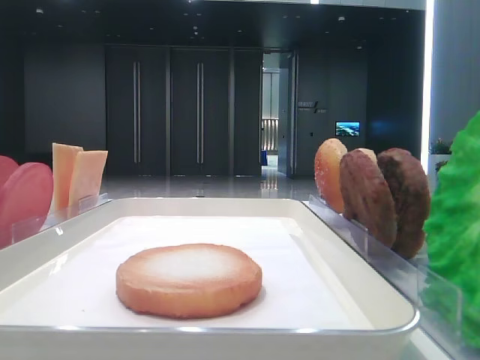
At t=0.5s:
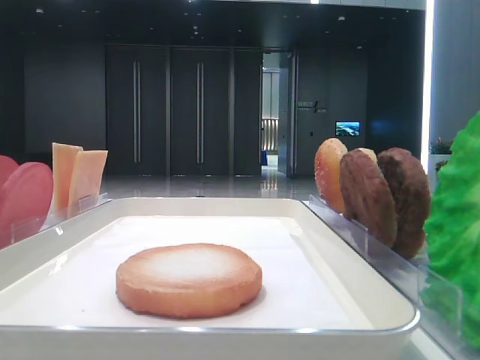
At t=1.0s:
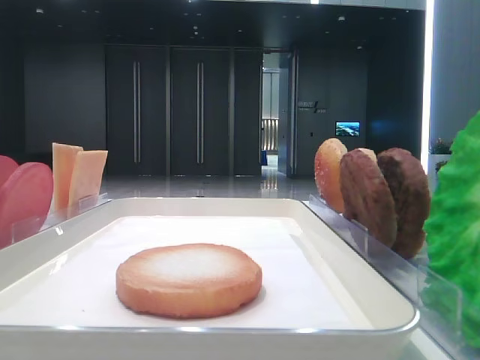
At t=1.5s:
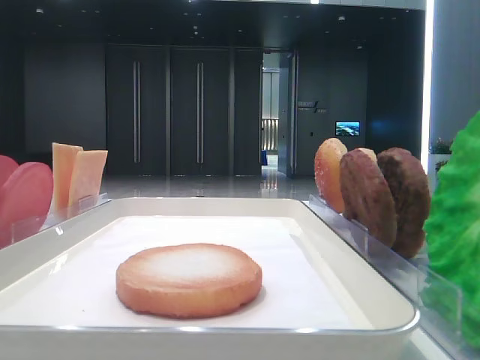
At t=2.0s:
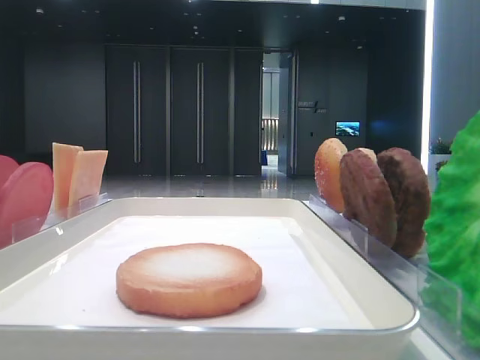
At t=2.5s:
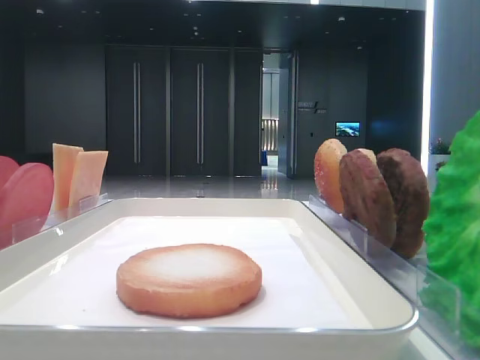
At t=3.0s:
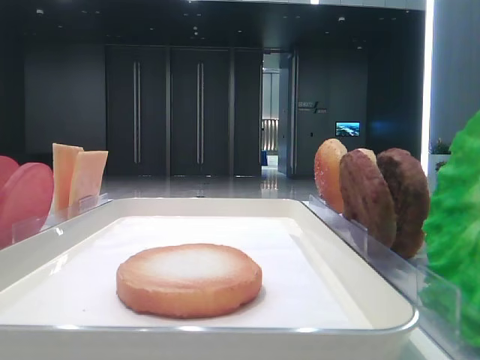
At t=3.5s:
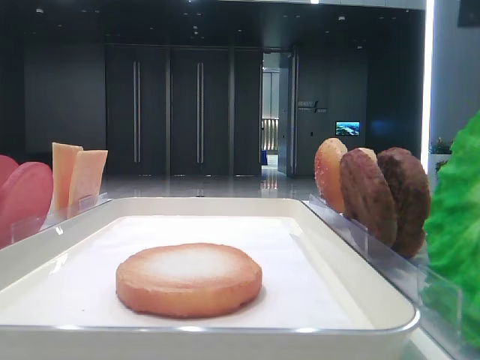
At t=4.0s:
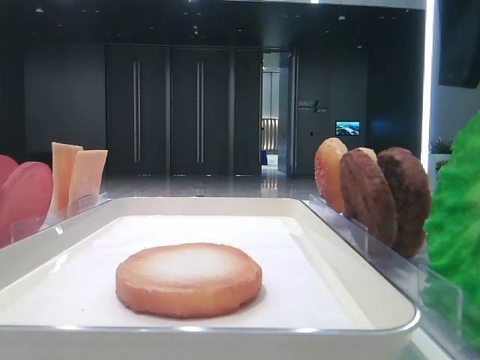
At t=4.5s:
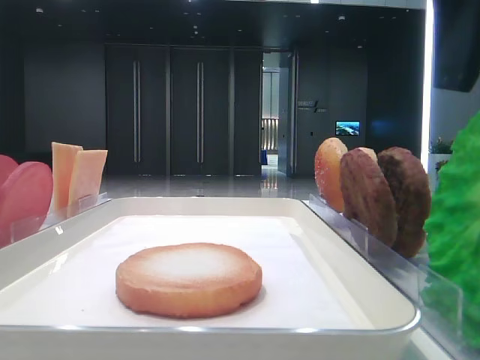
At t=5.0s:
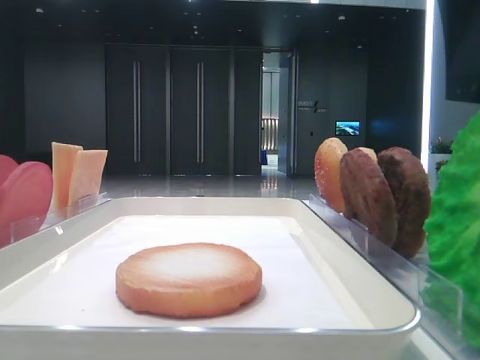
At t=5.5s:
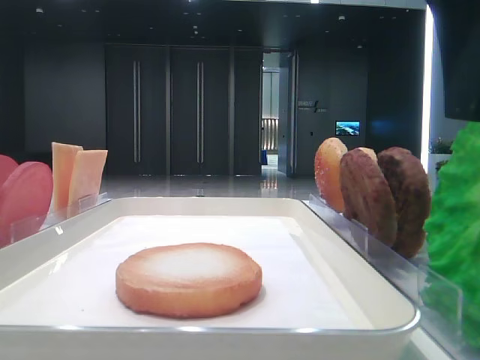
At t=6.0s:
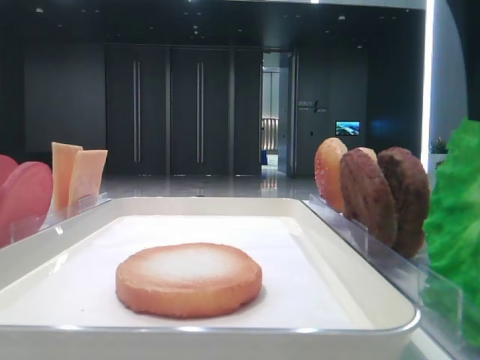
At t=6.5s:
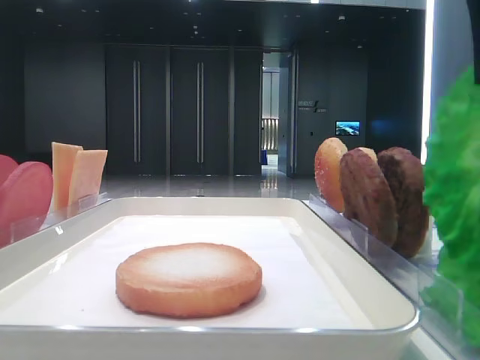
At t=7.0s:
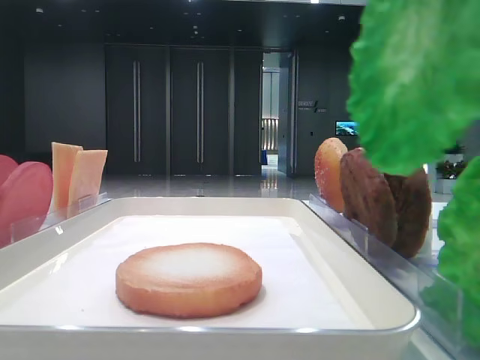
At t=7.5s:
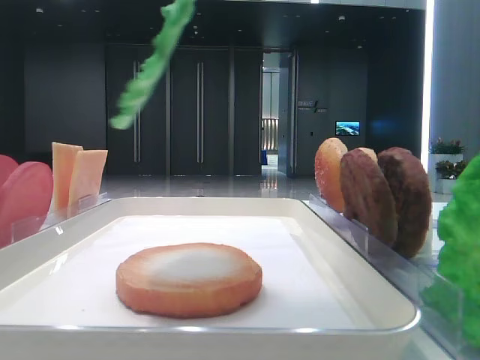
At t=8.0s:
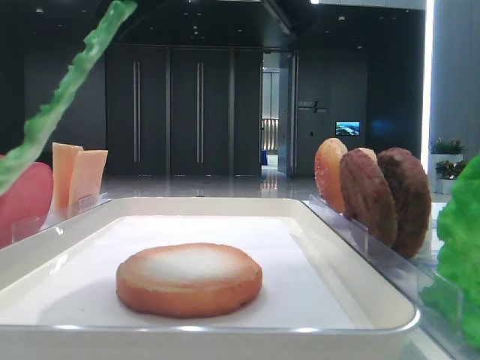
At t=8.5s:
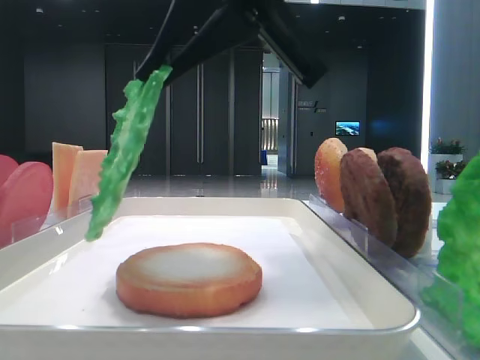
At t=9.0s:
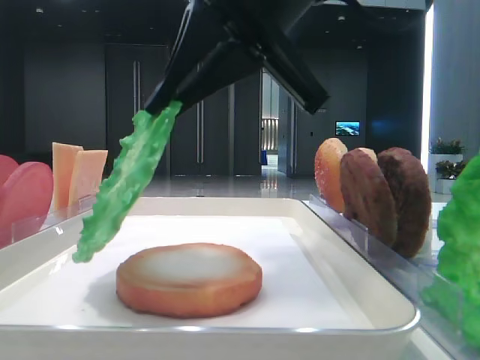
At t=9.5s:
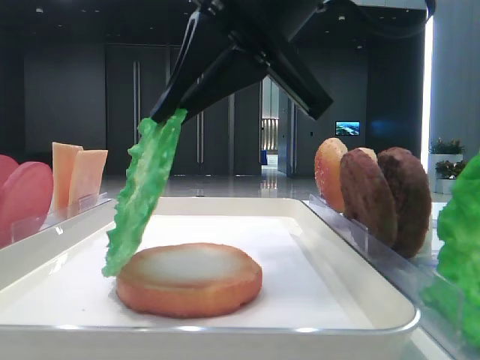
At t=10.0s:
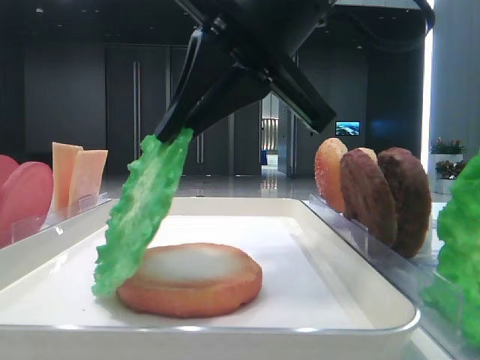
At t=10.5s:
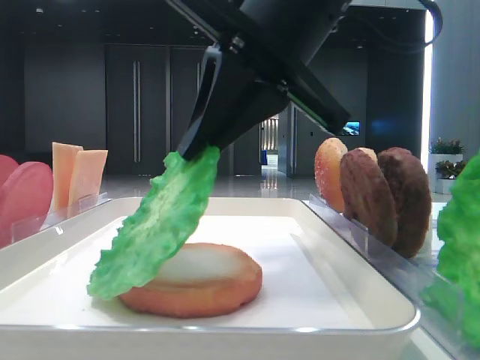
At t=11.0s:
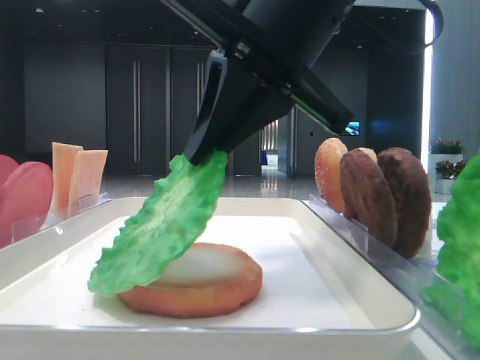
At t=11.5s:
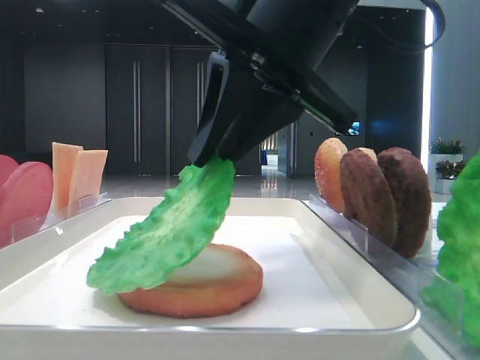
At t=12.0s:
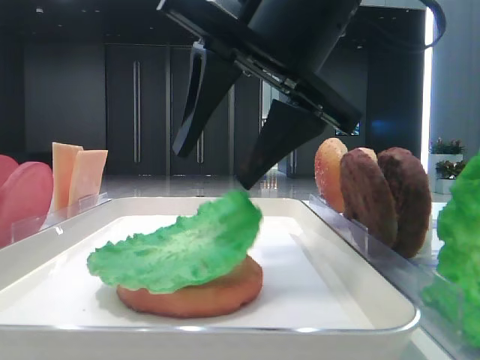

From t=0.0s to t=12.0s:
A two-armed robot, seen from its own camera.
Step, from t=0.0s to t=6.0s: Grab the lettuce leaf with the right hand.
Step, from t=6.5s to t=12.0s: Place the lettuce leaf on the bread slice with the right hand.
From t=2.0s to t=4.0s: The right gripper heads to the left and downward, covering some 15 cm.
From t=4.0s to t=6.0s: The right gripper closes up.
From t=6.0s to t=8.0s: The right gripper goes about 15 cm to the left, and closes up.
From t=8.0s to t=10.0s: The right gripper goes about 5 cm downward.
From t=10.0s to t=12.0s: The right gripper opens its fingers.

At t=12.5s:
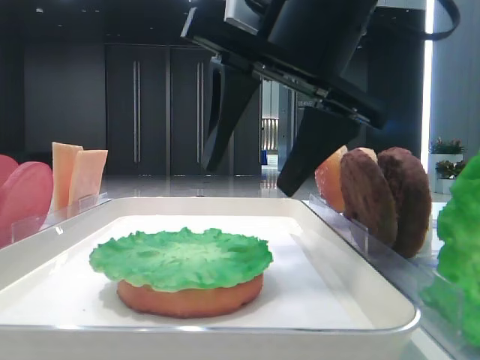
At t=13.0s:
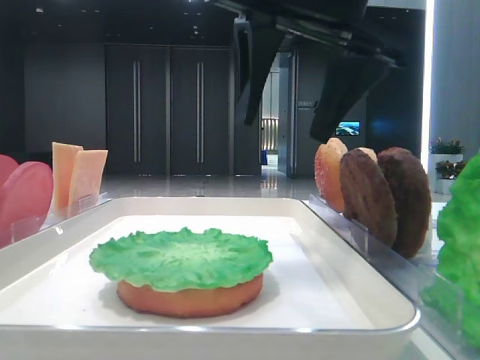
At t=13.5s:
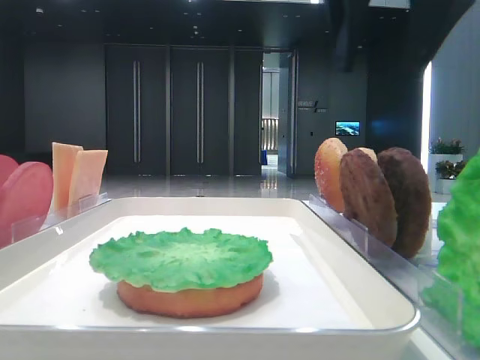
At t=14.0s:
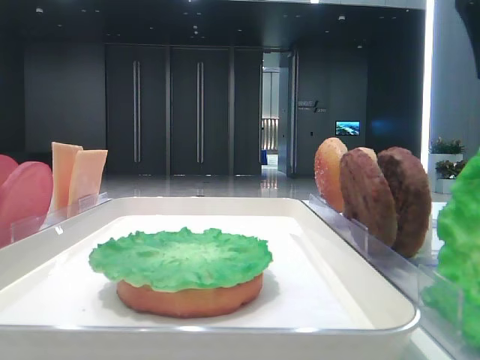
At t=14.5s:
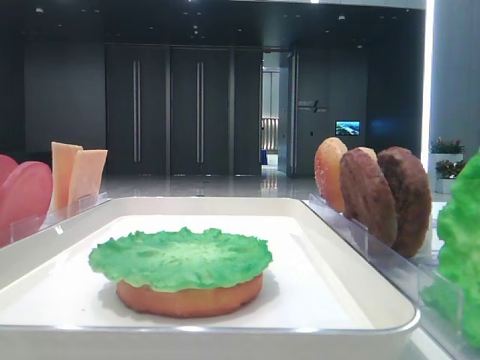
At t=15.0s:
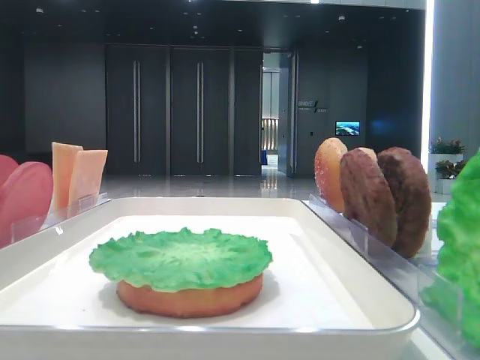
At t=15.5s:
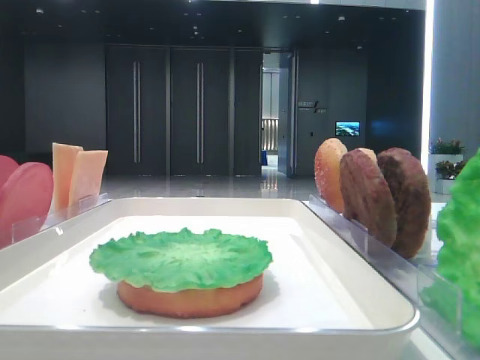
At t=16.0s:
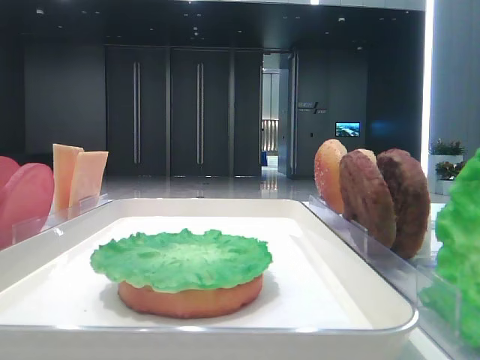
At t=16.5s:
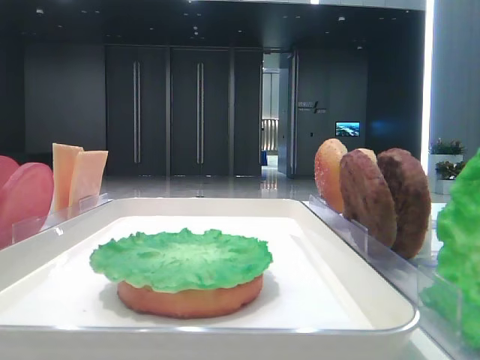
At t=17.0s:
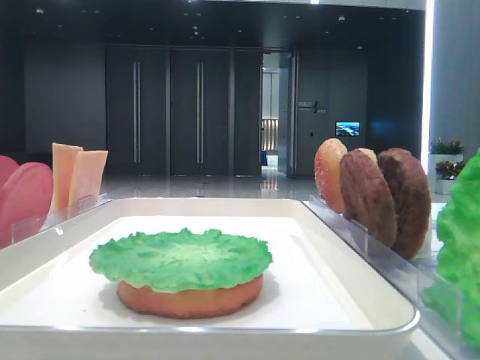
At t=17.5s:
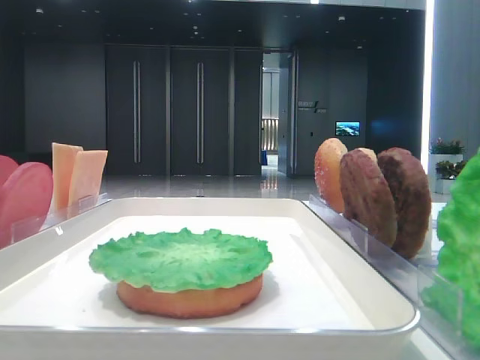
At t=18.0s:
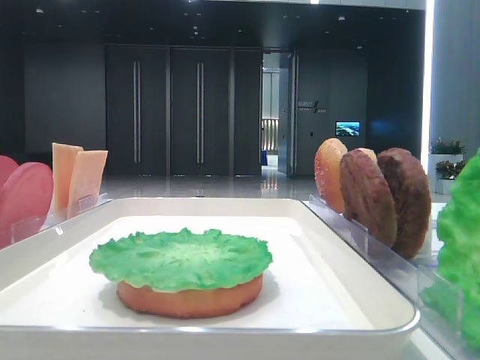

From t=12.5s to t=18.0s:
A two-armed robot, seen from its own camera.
From t=12.5s to t=14.5s: The right gripper shifts approximately 25 cm to the right.
From t=14.5s to t=16.0s: The right gripper moves backward, about 25 cm.
From t=16.0s to t=18.0s: The right gripper is displaced downward and backward by some 10 cm.

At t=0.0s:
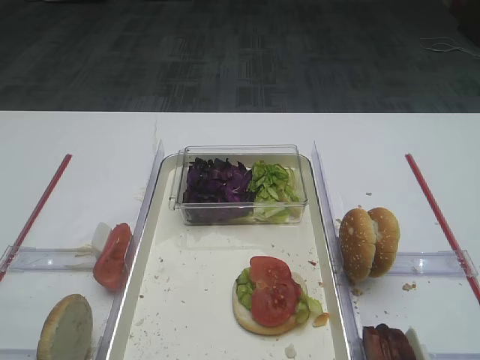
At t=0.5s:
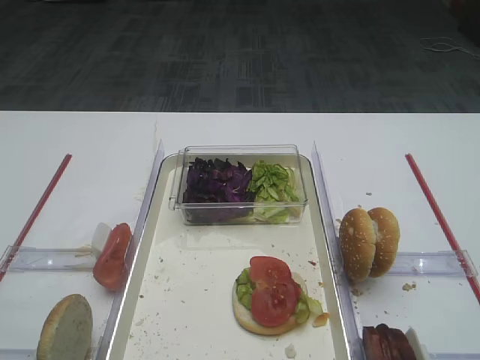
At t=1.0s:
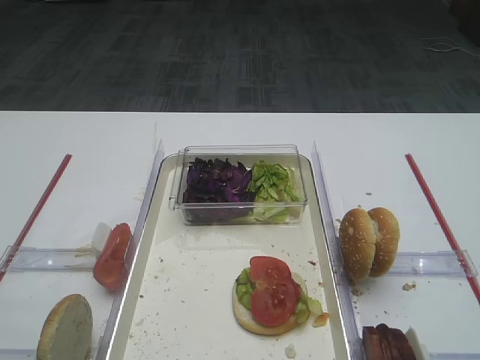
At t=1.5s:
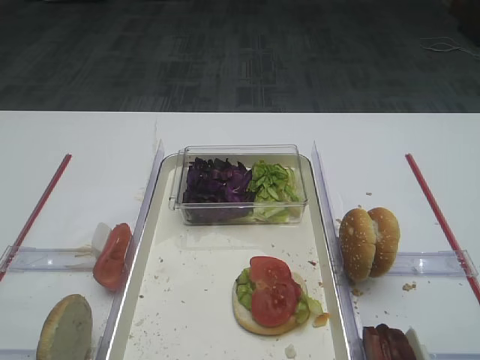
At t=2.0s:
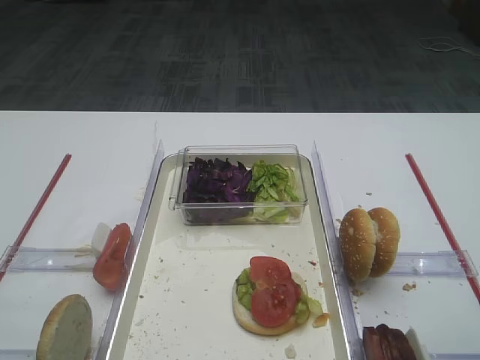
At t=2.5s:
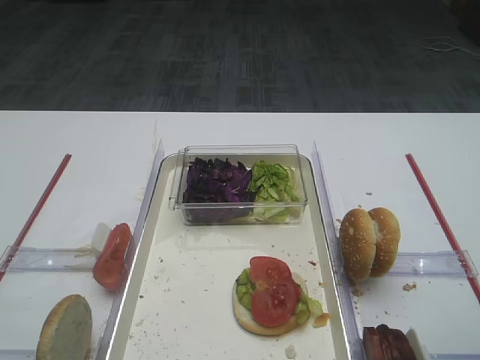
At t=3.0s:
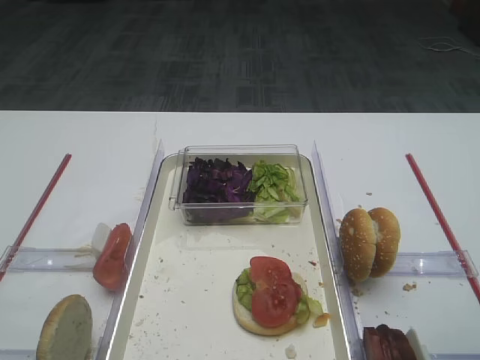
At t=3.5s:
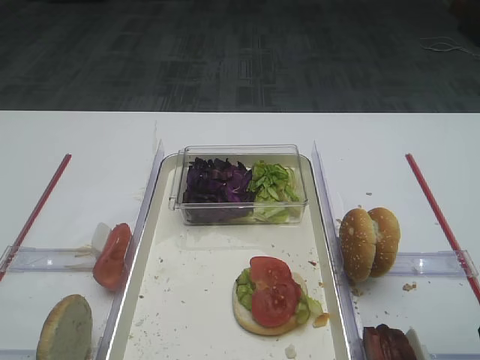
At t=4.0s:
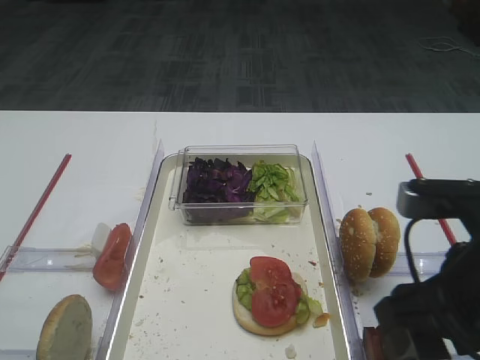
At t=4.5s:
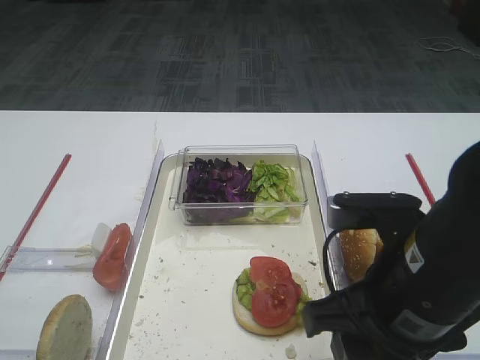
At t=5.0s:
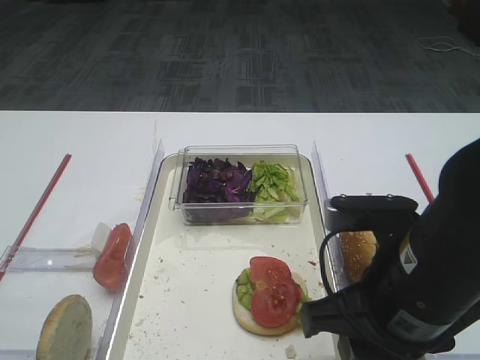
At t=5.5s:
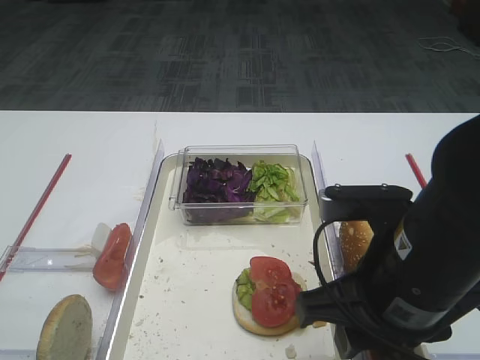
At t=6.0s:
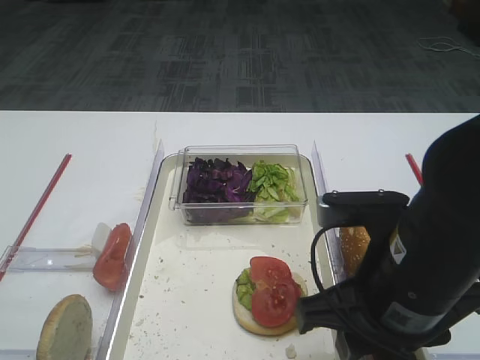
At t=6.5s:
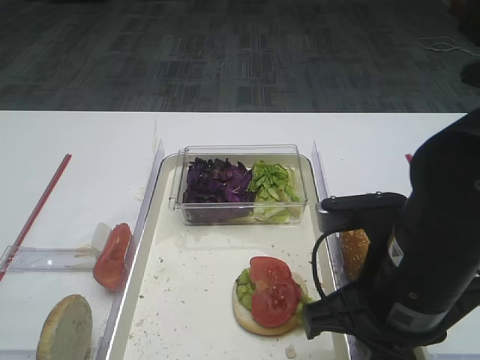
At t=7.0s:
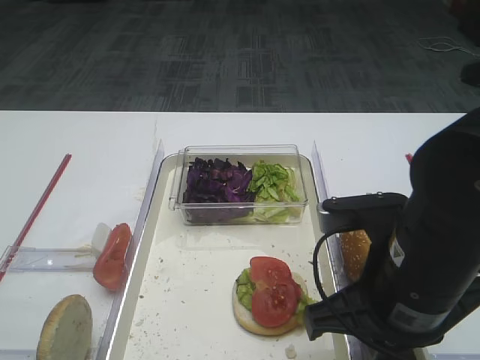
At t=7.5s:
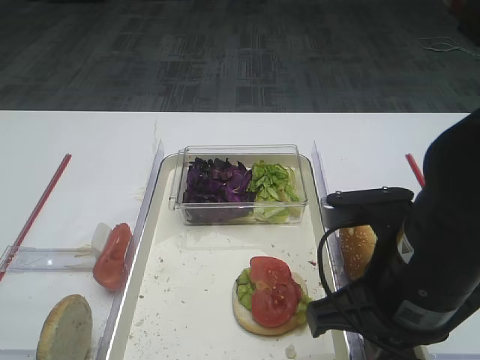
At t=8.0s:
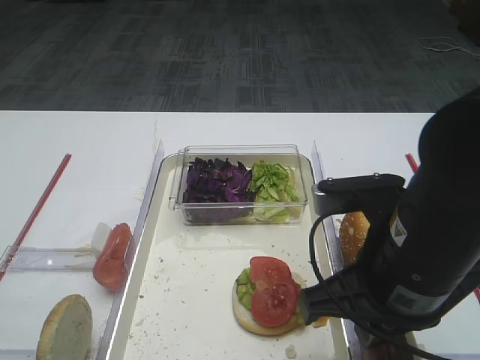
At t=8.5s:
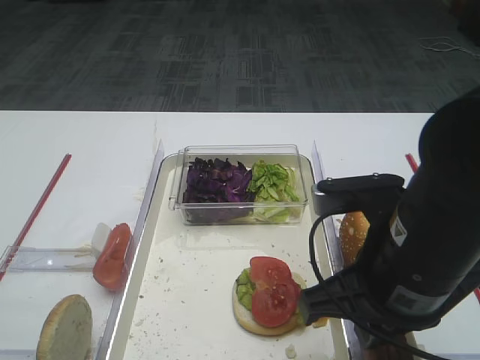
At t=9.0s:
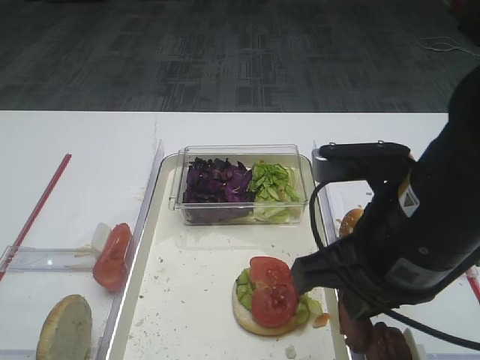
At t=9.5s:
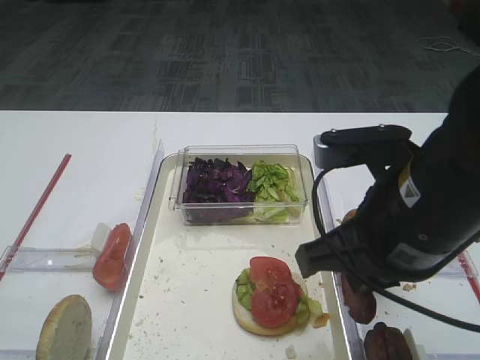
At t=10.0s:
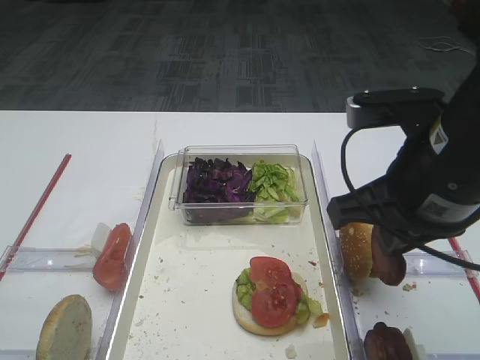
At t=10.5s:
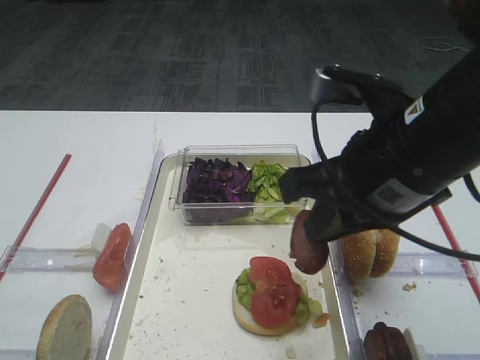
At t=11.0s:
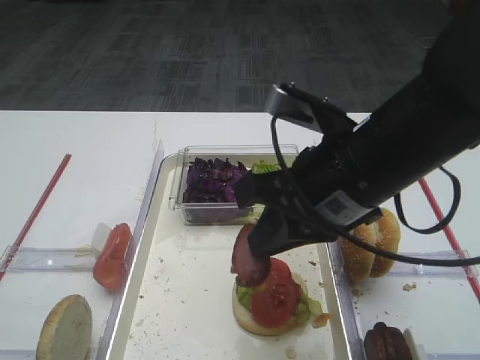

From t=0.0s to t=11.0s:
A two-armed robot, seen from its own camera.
Step, from t=0.0s to t=9.5s: Pick up the cutlet with the right gripper.
From t=3.5s to t=5.5s: The right gripper heads to the left, covering some 15 cm.
From t=5.5s to t=7.5s: The right gripper closes up.
From t=7.5s to t=9.0s: The grippers move only a little.
From t=9.0s to t=11.0s: The right gripper is displaced forward by about 5 cm.
